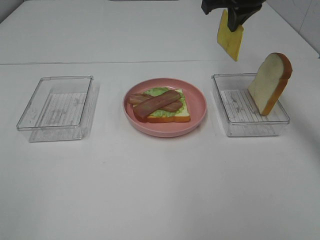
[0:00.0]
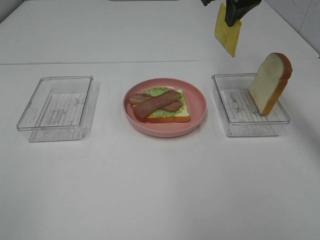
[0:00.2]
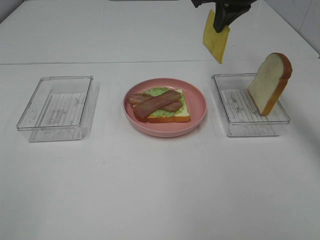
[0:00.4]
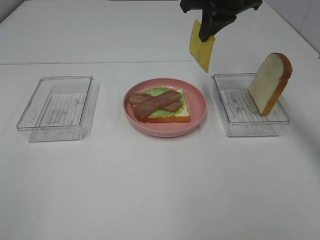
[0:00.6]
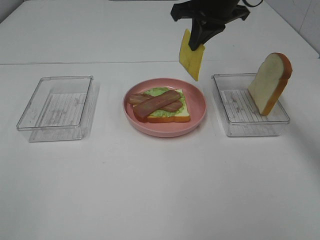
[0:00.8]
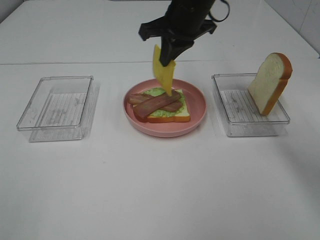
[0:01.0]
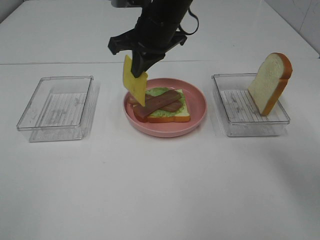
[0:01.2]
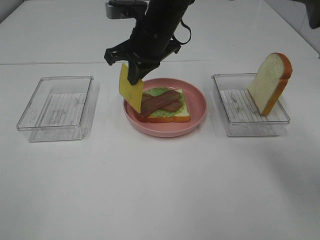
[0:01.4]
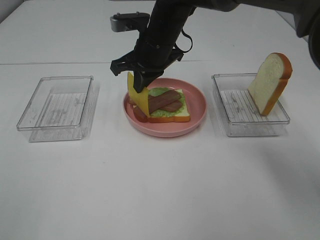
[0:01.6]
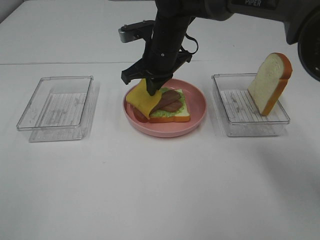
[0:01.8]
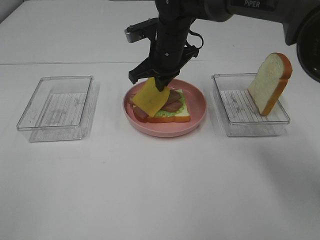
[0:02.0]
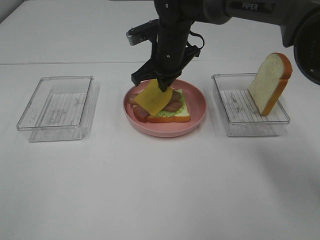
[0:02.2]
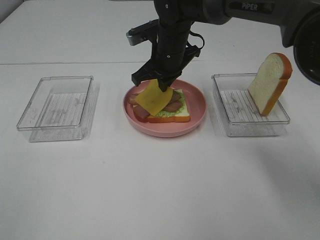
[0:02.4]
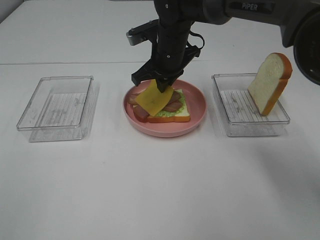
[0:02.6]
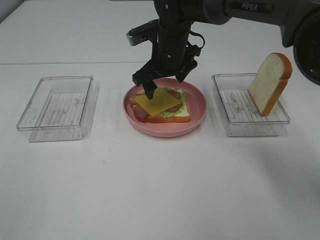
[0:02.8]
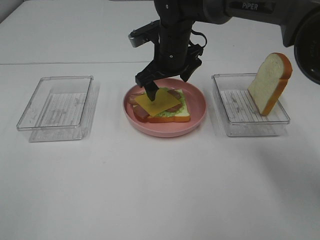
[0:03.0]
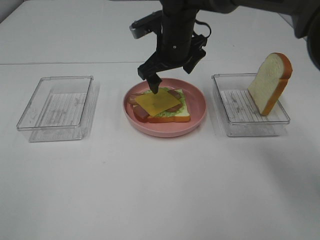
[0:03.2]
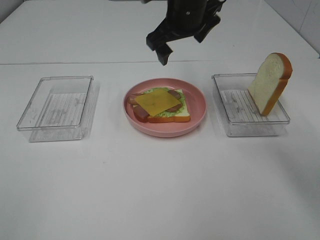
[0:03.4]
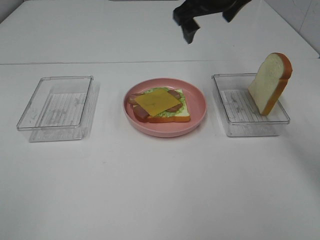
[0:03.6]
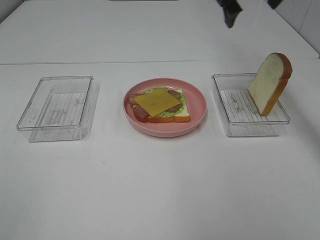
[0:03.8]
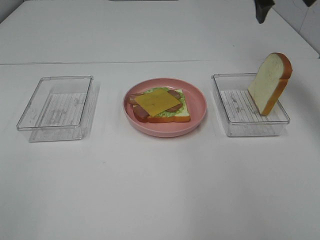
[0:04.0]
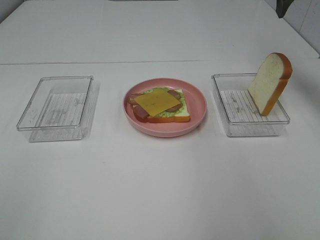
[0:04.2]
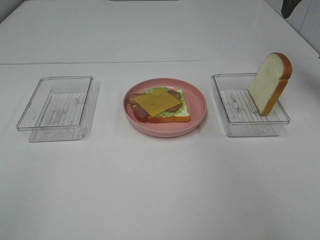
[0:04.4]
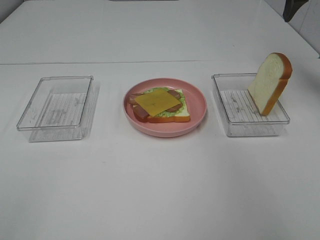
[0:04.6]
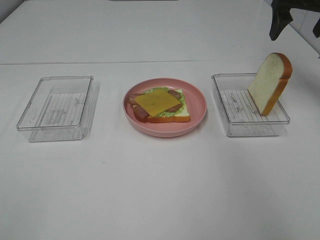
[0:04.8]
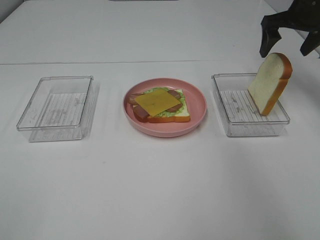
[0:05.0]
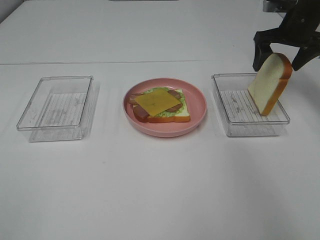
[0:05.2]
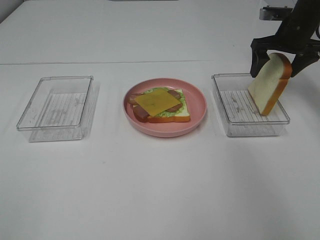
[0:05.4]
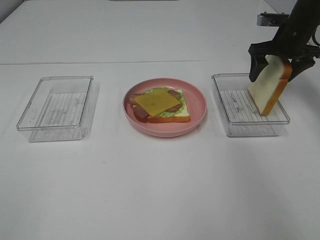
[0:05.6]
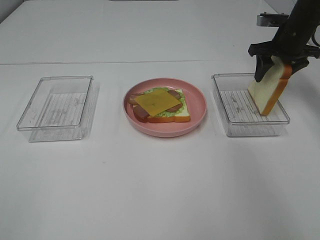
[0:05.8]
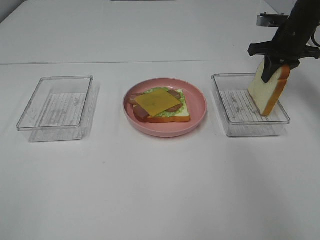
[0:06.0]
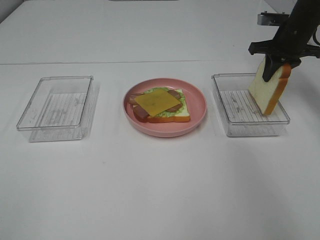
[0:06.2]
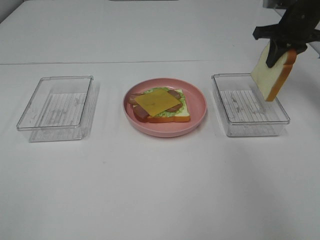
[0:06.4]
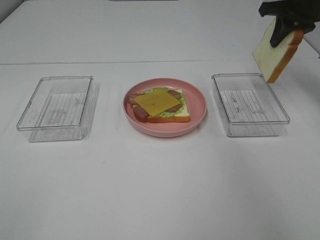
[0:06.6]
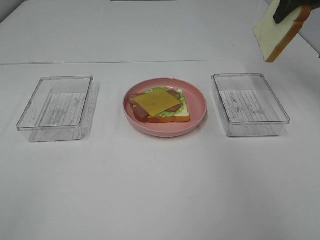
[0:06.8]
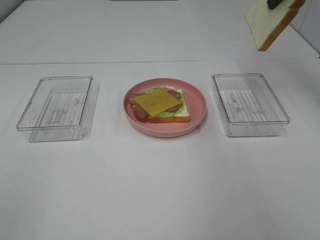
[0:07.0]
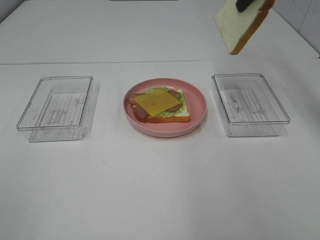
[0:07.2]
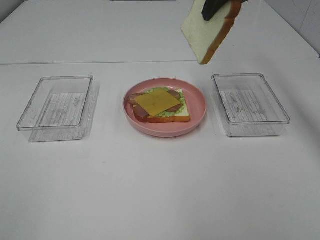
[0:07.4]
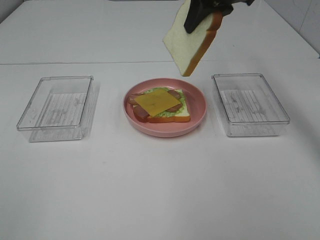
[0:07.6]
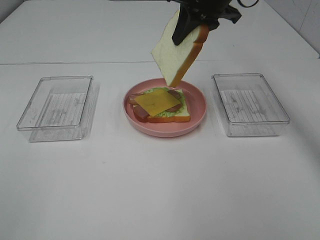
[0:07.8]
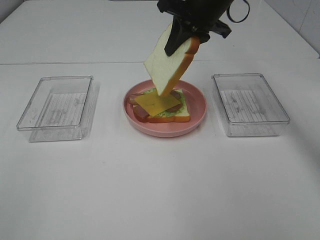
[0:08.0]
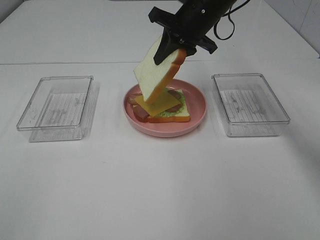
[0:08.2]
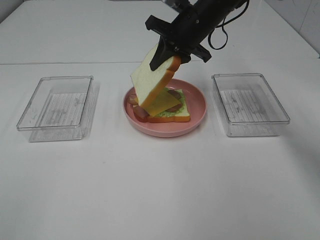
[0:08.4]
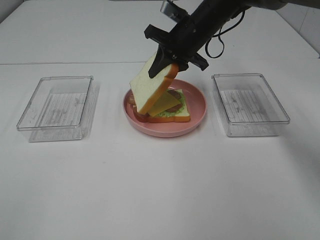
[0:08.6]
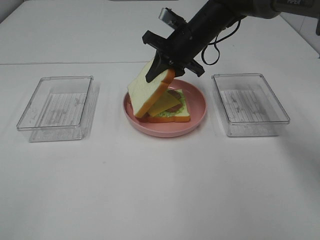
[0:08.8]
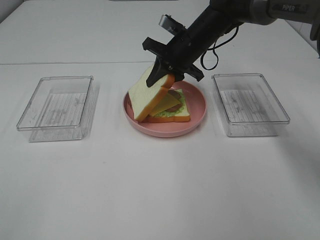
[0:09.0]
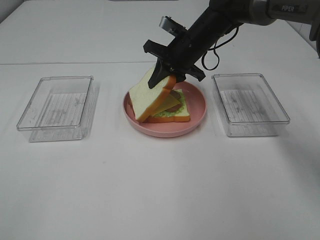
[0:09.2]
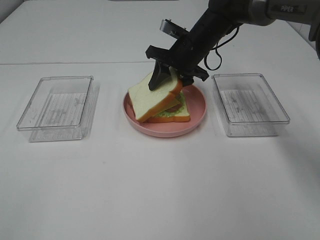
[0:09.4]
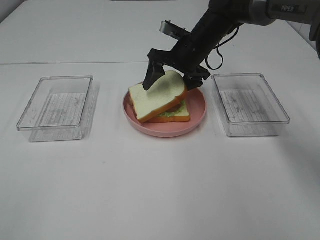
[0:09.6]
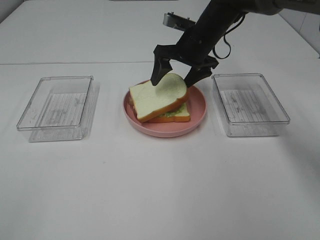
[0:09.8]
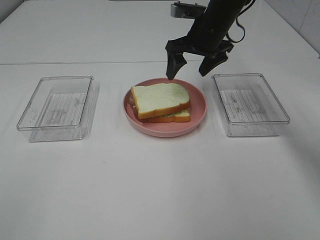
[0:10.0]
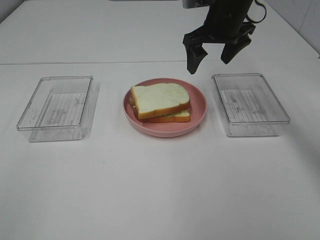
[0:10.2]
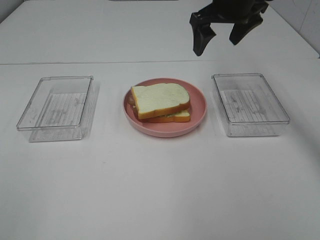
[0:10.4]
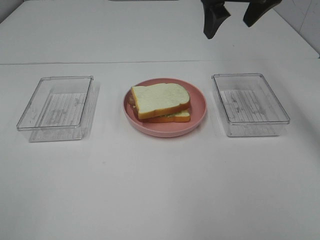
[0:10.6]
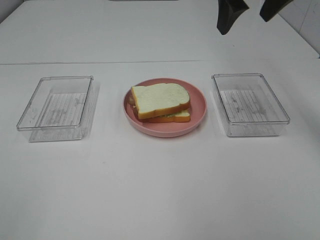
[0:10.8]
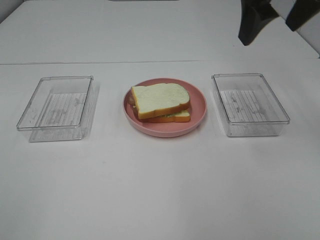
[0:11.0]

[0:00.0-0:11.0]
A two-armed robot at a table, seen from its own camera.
Task of the whole recording: Make sandwiches.
Step, 0:00.0 to 0:02.8: Right hand:place the cheese slice on top of the bacon.
Step, 0:03.0 to 0:06.0: Right hand:grab the bread slice.
Step, 0:06.2 to 0:10.0: Right hand:place the bread slice on the cheese slice.
0:00.0 to 0:01.6: The right gripper heads to the left and downward, covering approximately 20 cm.
0:01.6 to 0:03.2: The right gripper opens up.
0:03.2 to 0:04.8: The right gripper is displaced to the right by approximately 25 cm.
0:04.8 to 0:06.2: The right gripper heads downward, covering some 10 cm, and closes up.
0:06.2 to 0:07.8: The right gripper is displaced to the left and upward by about 20 cm.
0:07.8 to 0:09.4: The right gripper travels downward by roughly 15 cm, and opens its fingers.
0:09.4 to 0:11.0: The right gripper is displaced upward, backward and to the right by approximately 25 cm, and opens up.

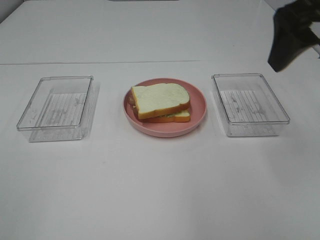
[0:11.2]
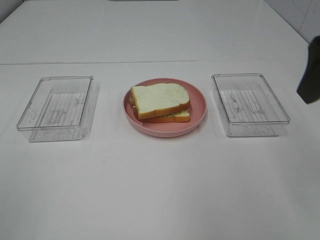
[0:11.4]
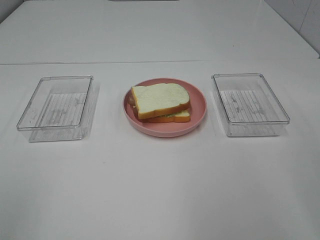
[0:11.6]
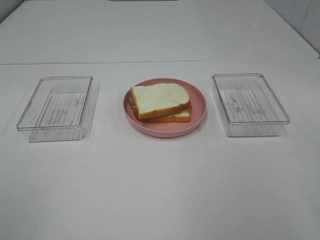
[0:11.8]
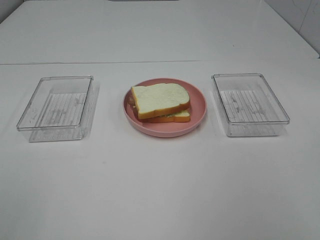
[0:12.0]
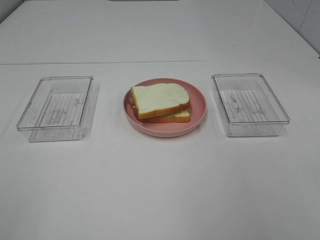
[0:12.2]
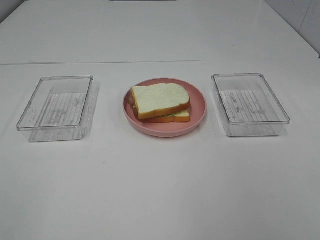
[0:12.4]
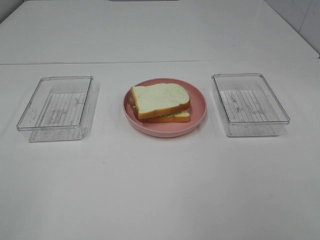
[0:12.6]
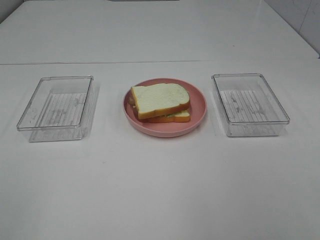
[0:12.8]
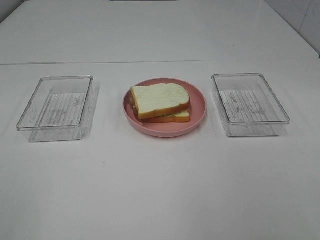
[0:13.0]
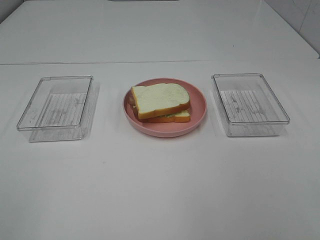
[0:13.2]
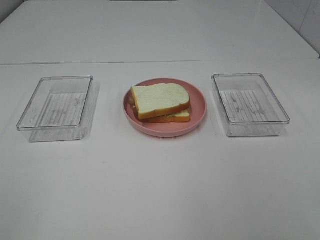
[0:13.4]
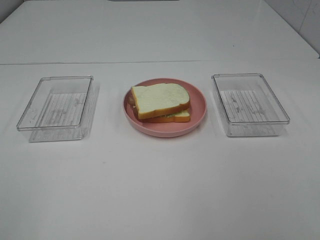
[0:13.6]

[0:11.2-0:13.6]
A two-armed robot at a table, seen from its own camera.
Task of the whole recording: Make sandwiches.
0:11.2 to 0:12.4: The right gripper goes about 25 cm backward.
